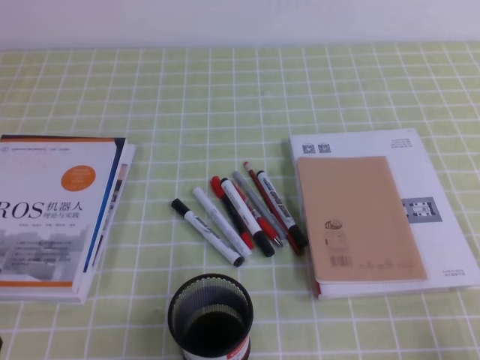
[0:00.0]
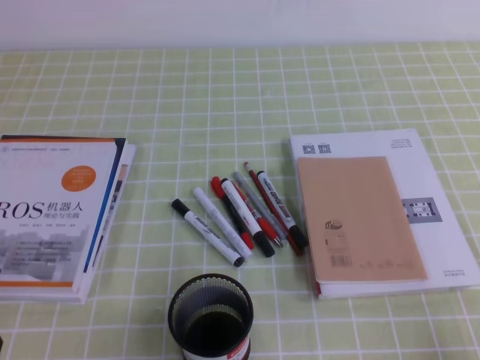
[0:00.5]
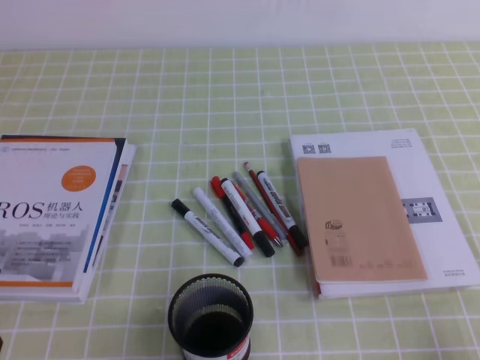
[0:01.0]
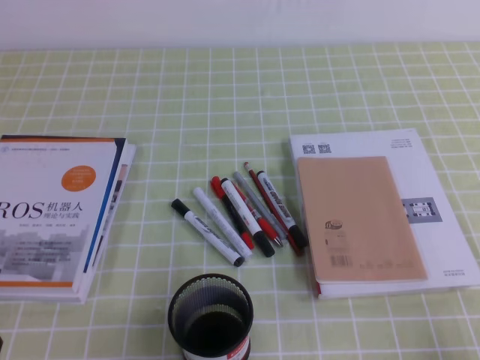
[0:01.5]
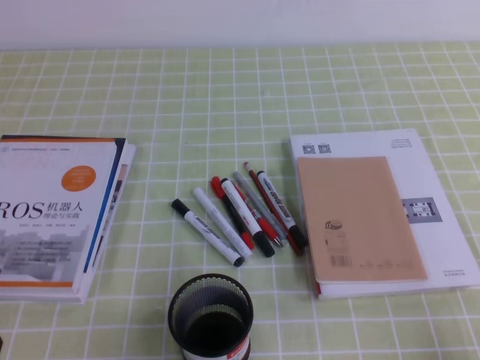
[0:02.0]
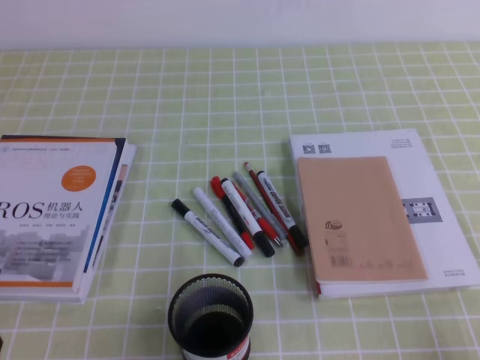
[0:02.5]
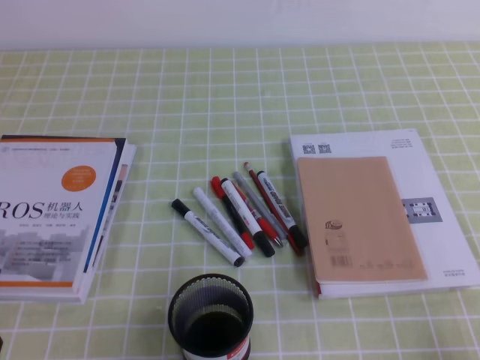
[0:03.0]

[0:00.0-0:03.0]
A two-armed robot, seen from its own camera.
0:00.0 to 0:03.0: Both grippers stay about where they are.

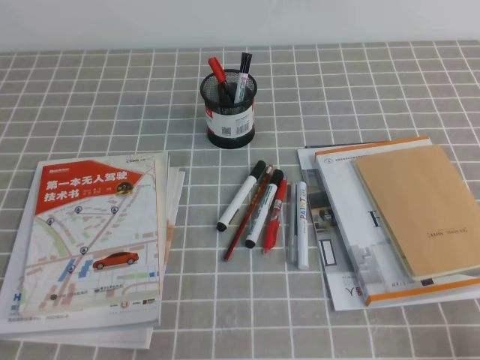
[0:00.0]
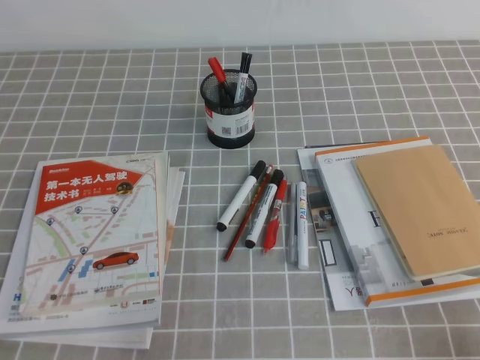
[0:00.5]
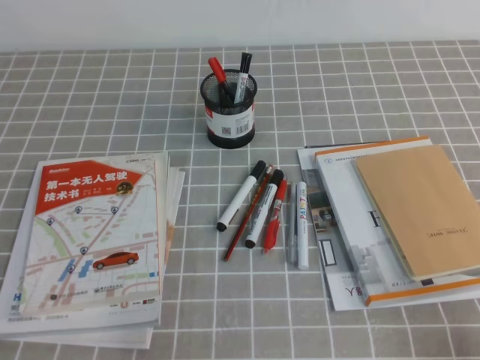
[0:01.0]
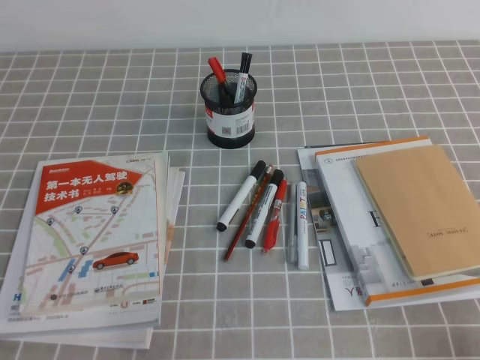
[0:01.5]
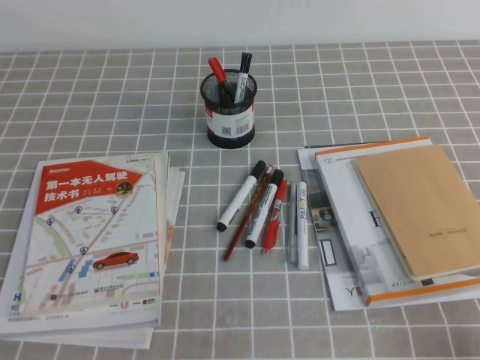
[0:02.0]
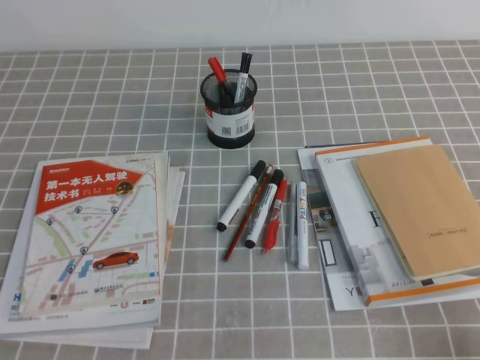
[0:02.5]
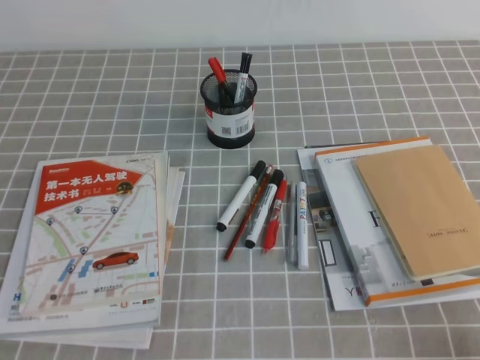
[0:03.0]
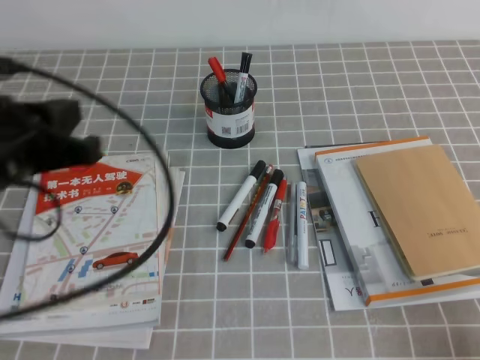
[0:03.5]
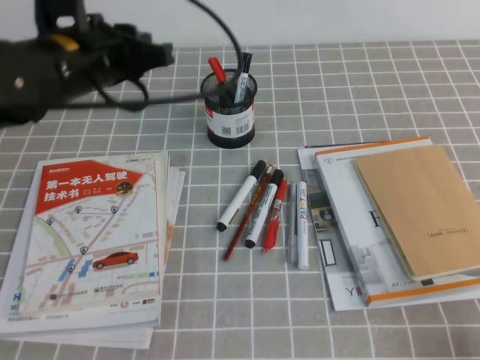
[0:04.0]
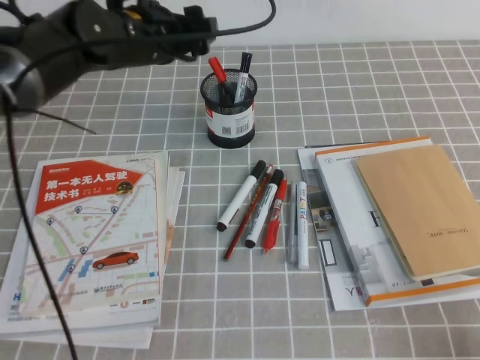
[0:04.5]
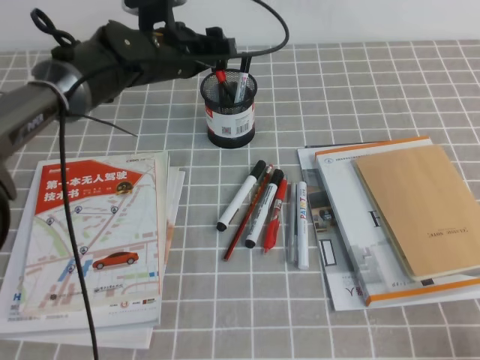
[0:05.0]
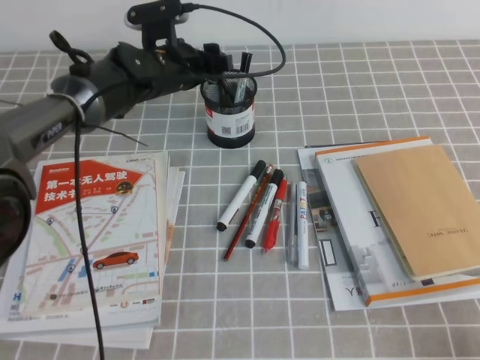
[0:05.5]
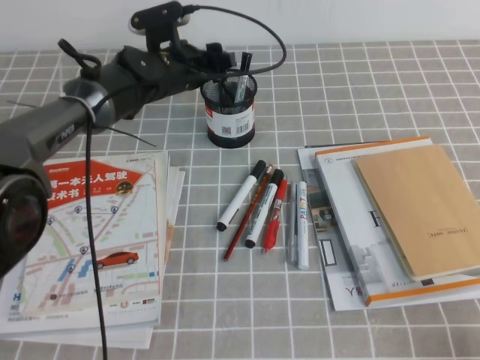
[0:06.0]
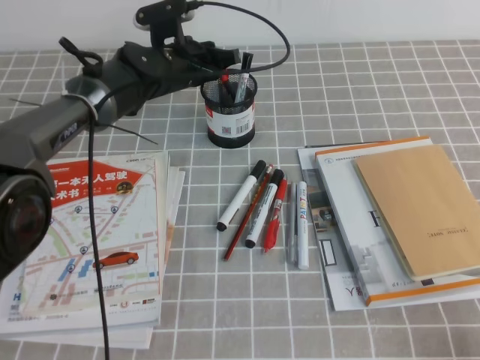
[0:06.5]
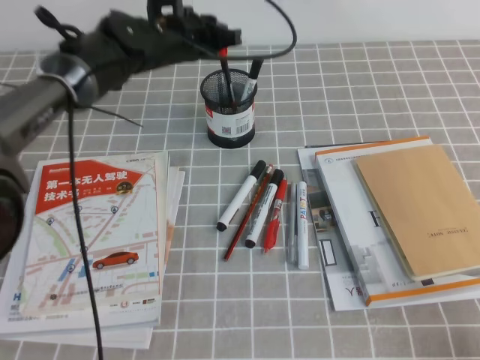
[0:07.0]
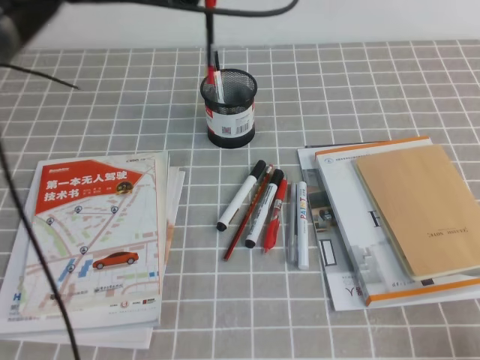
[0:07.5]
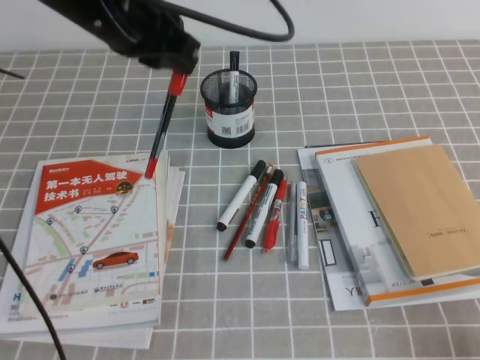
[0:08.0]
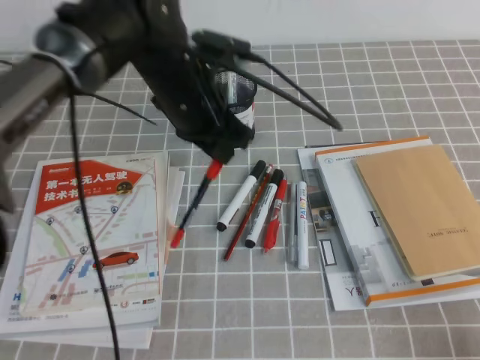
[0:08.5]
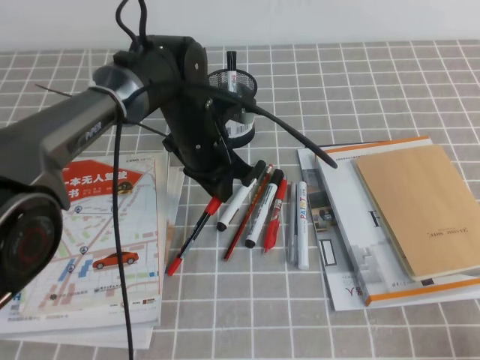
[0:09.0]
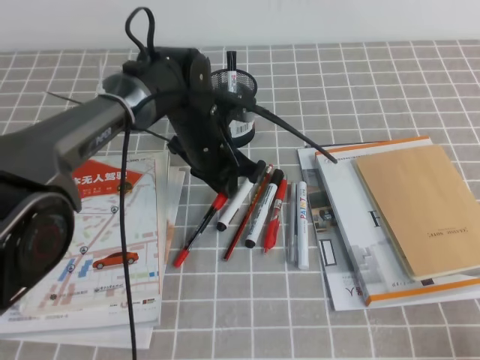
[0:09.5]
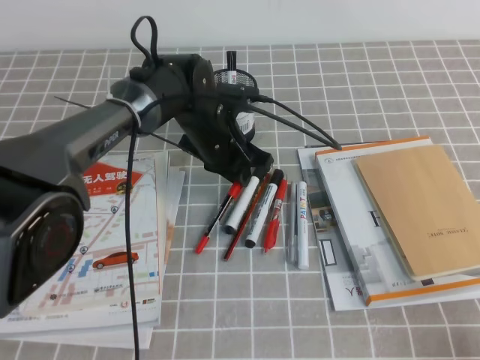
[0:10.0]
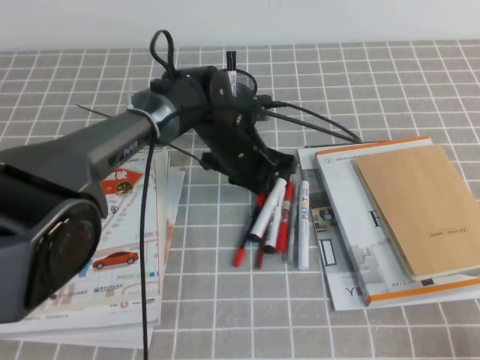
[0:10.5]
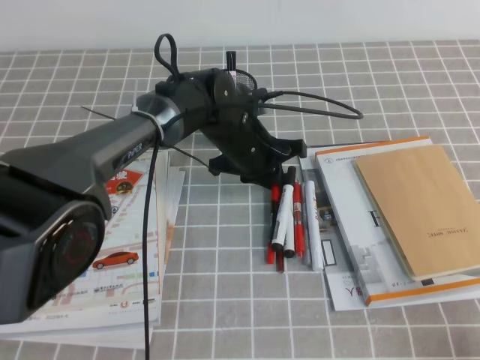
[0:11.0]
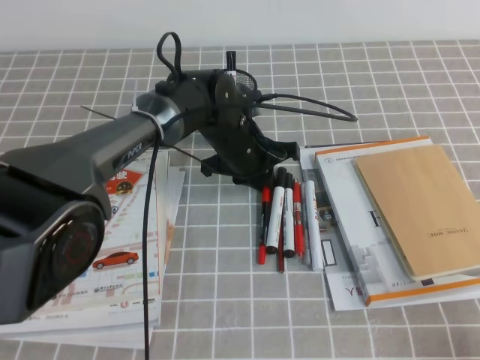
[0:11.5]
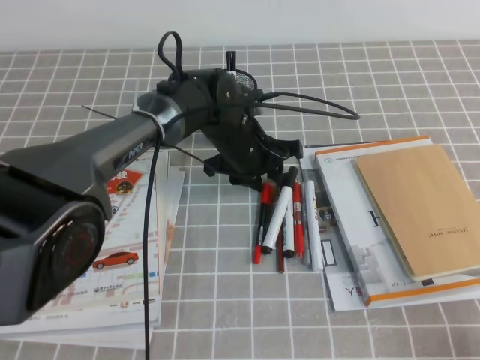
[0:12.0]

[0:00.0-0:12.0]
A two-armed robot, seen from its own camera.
0:02.0 to 0:04.0: The left gripper is displaced forward, upward and to the right by approximately 35 cm.
0:04.0 to 0:06.0: The left gripper travels forward, downward and to the right by approximately 20 cm, and opens its fingers.
0:06.0 to 0:08.0: The left gripper moves upward and backward, roughly 20 cm, and closes.
0:08.0 to 0:10.0: The left gripper shifts approximately 20 cm downward.

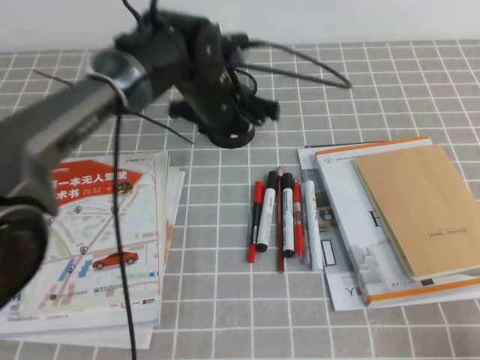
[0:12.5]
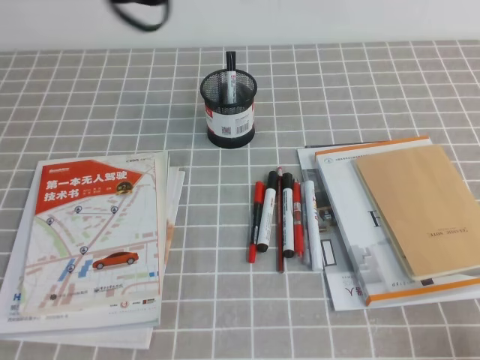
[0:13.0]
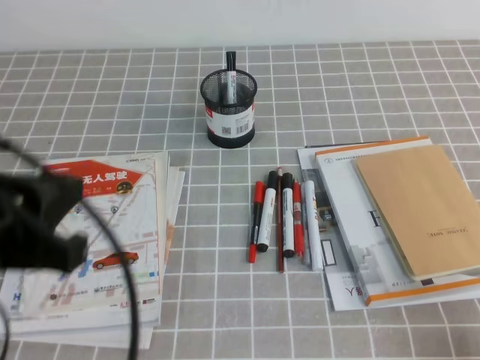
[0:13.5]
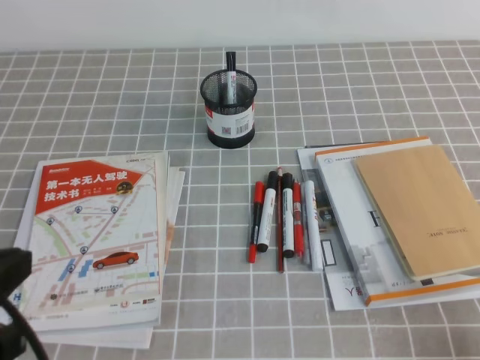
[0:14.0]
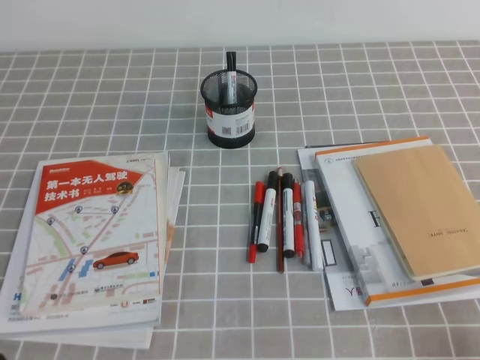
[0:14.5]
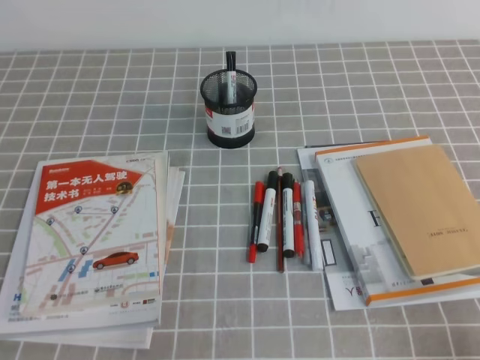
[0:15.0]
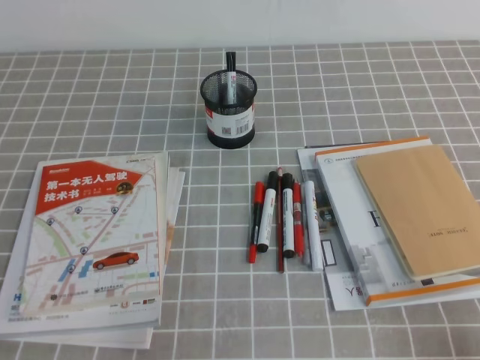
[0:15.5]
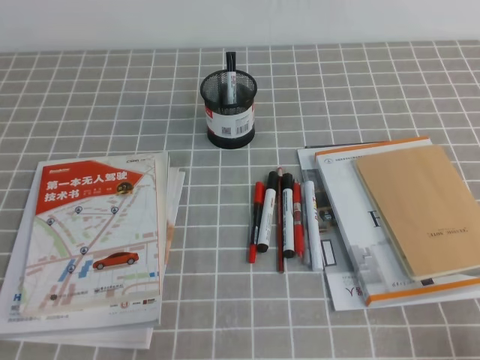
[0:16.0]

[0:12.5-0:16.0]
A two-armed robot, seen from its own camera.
Step, 0:12.5 to 0:16.0: Pick up the pen from the pen holder.
0:12.5 to 0:14.5: The left gripper goes about 40 cm backward and to the left, and closes its fingers.
0:14.5 to 0:16.0: The left gripper is displaced downward by some 10 cm.

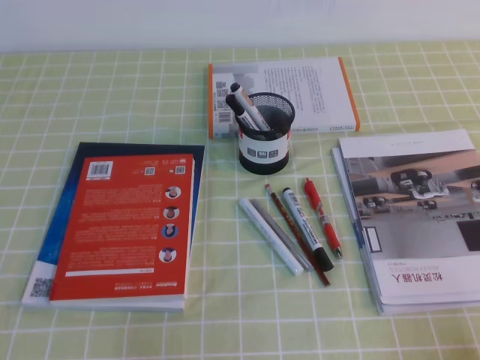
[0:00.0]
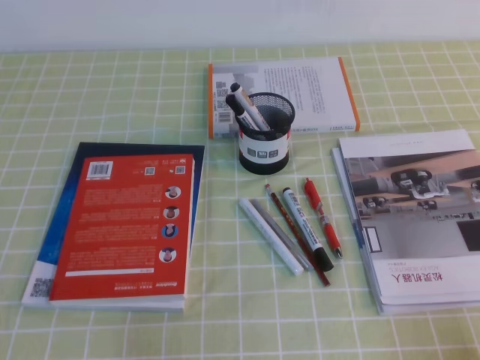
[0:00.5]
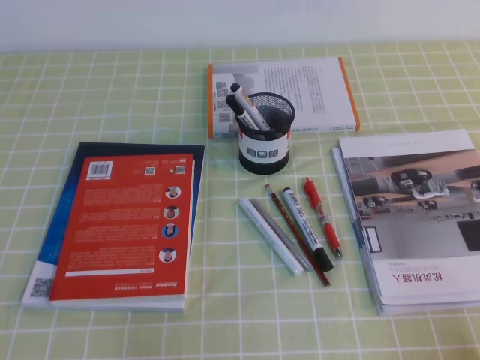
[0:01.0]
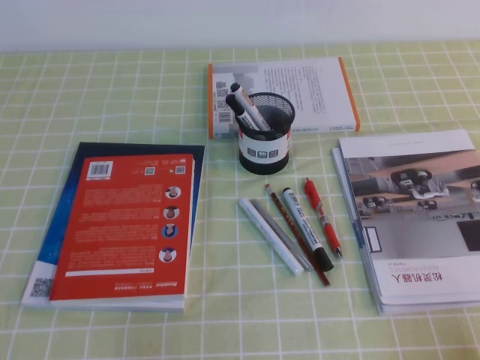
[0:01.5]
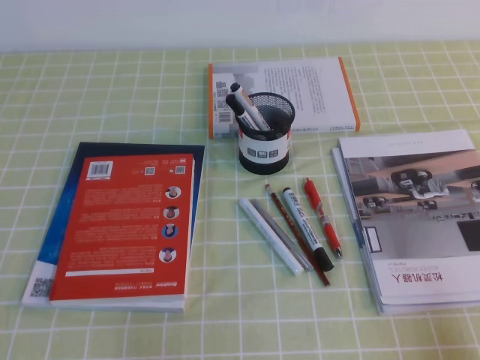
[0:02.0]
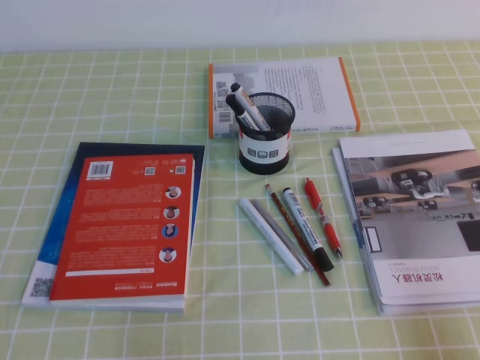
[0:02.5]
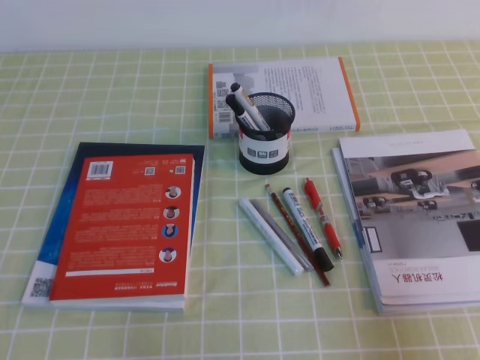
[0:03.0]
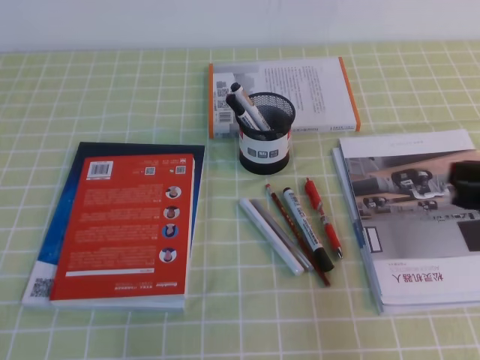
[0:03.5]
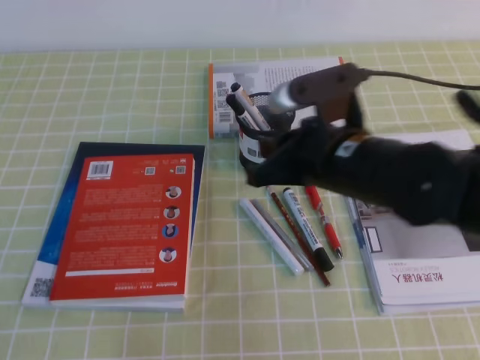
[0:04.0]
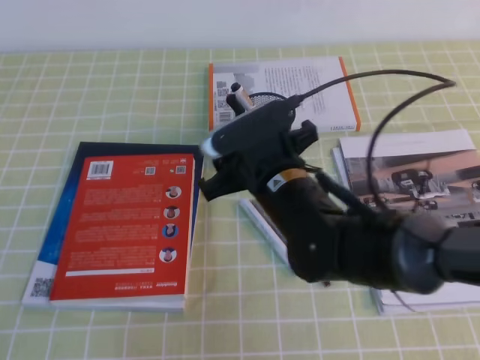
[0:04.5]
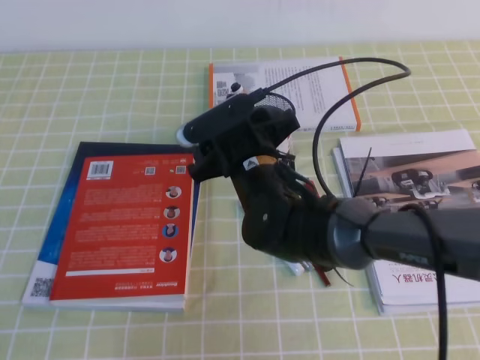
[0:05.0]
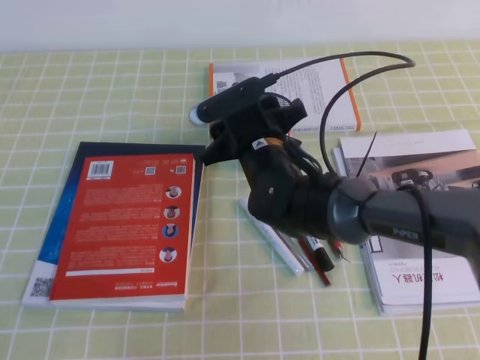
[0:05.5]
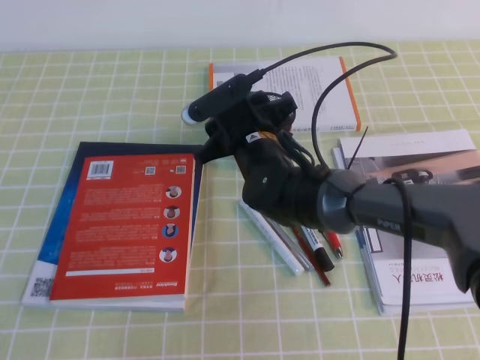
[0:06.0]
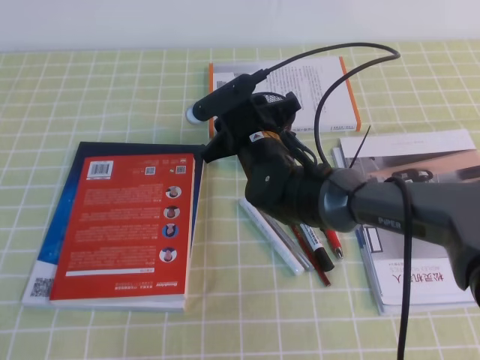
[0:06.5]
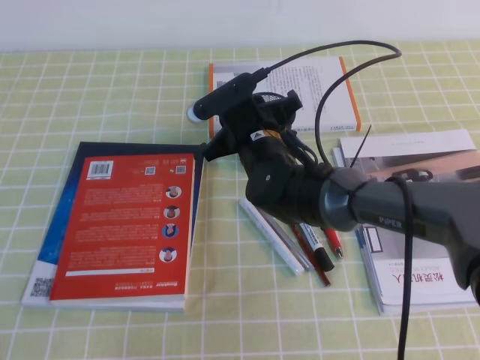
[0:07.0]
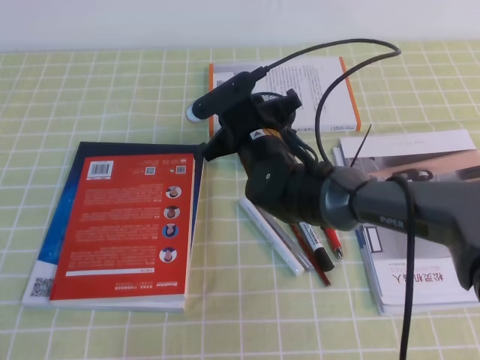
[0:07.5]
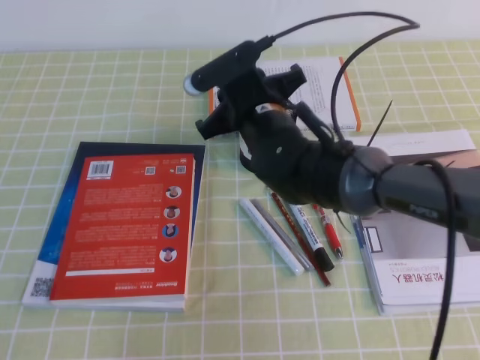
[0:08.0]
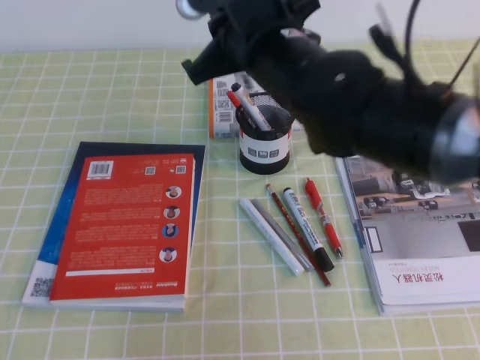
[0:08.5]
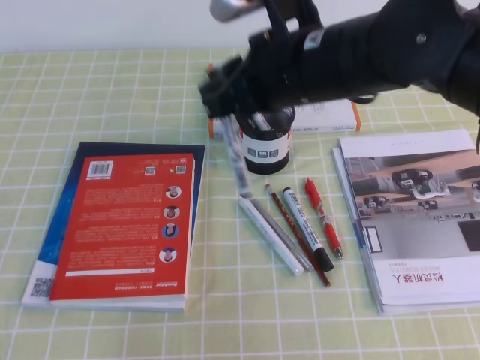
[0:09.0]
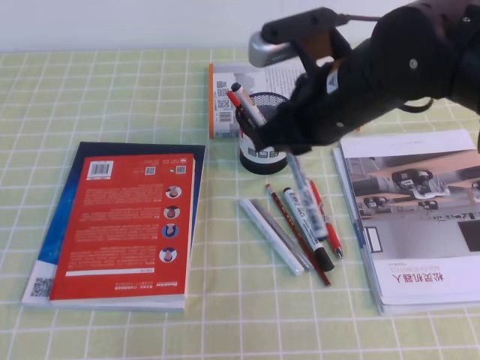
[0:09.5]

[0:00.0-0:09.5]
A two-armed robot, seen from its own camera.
0:02.0 to 0:04.0: The right gripper travels forward, to the left and upward by about 30 cm.
0:04.0 to 0:05.5: The right gripper heads to the left, forward and downward, covering approximately 15 cm, and opens its fingers.
0:05.5 to 0:07.5: The right gripper closes its fingers.
0:07.5 to 0:09.5: The right gripper is displaced upward, to the right and backward by roughly 15 cm.
